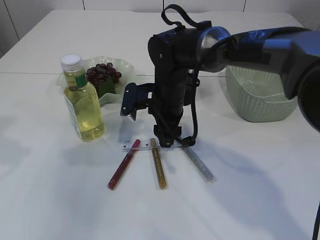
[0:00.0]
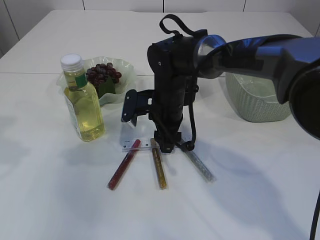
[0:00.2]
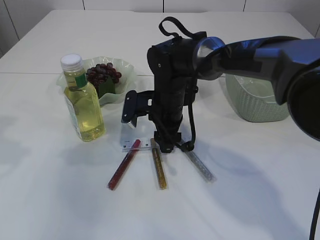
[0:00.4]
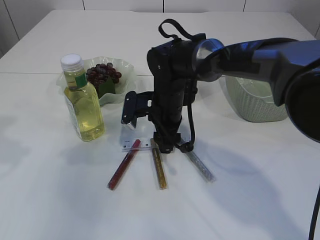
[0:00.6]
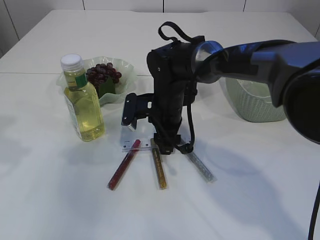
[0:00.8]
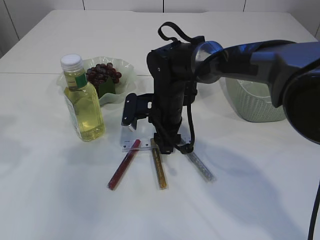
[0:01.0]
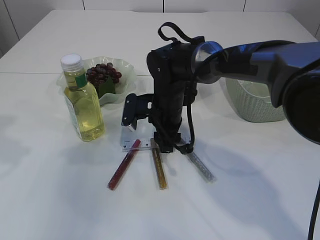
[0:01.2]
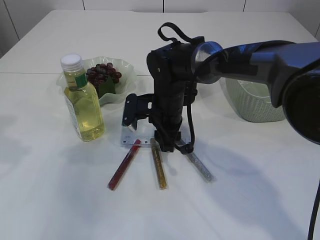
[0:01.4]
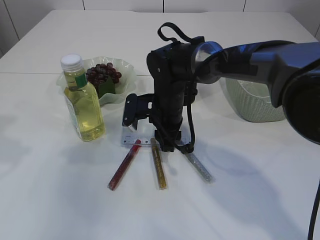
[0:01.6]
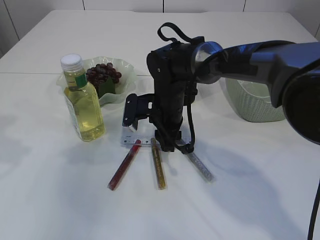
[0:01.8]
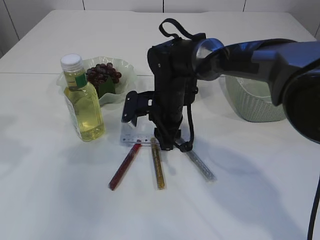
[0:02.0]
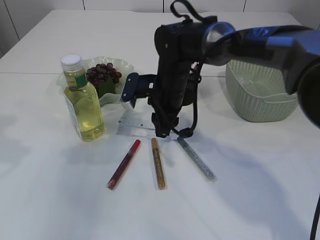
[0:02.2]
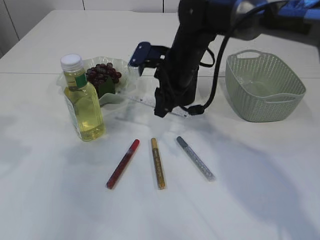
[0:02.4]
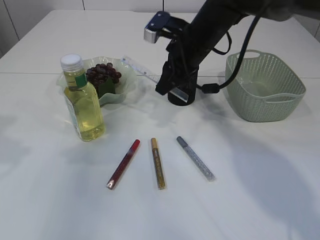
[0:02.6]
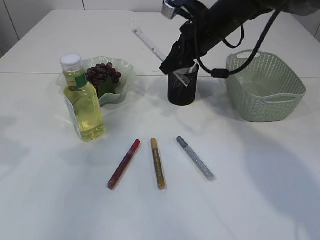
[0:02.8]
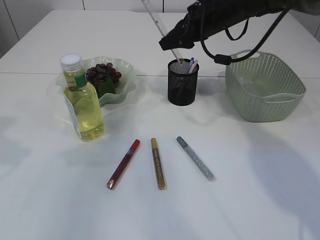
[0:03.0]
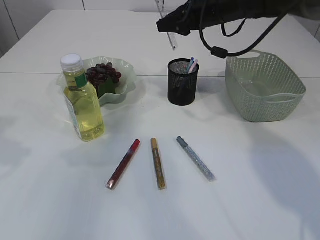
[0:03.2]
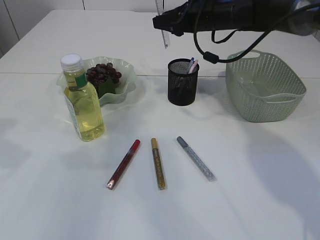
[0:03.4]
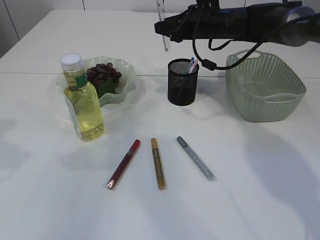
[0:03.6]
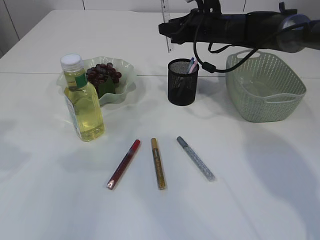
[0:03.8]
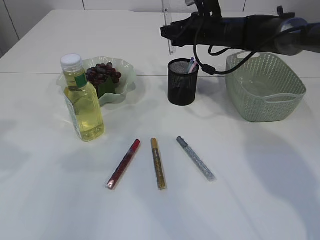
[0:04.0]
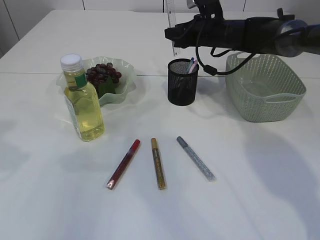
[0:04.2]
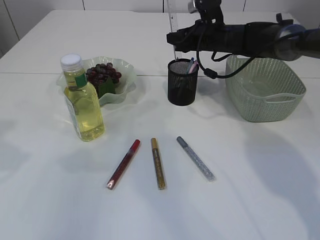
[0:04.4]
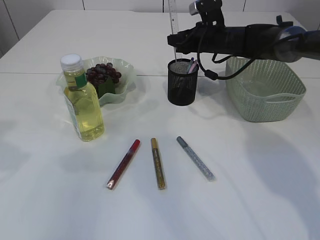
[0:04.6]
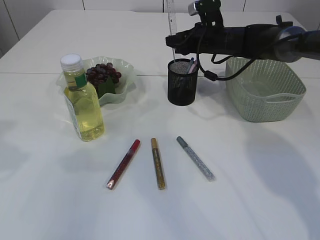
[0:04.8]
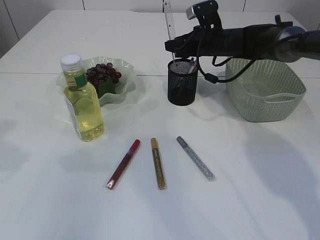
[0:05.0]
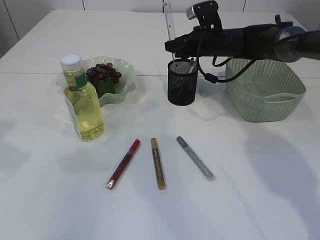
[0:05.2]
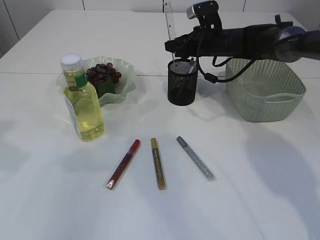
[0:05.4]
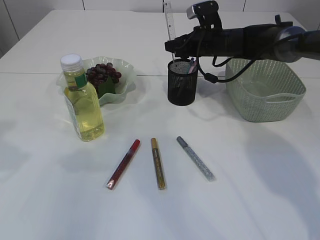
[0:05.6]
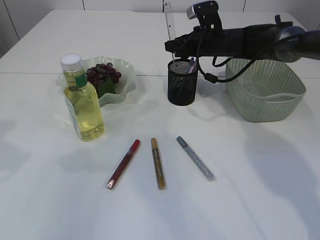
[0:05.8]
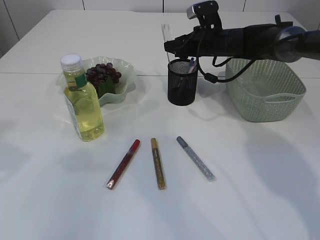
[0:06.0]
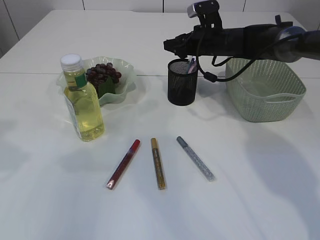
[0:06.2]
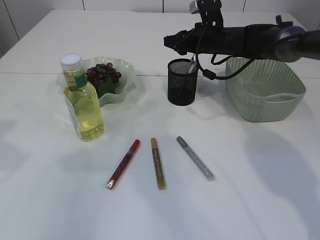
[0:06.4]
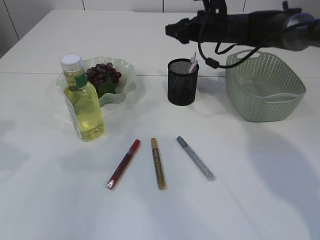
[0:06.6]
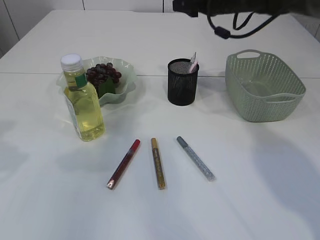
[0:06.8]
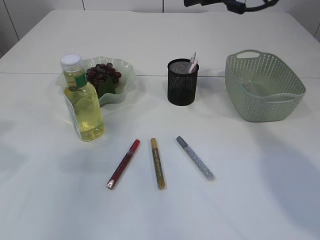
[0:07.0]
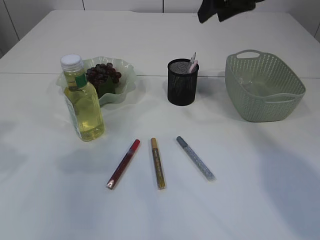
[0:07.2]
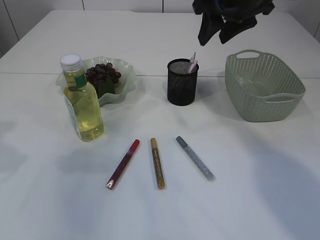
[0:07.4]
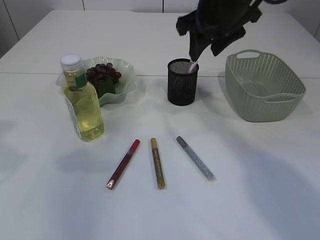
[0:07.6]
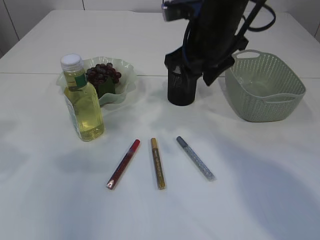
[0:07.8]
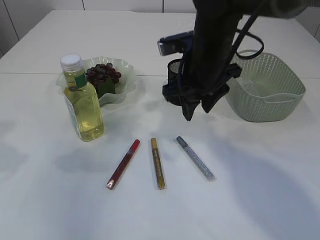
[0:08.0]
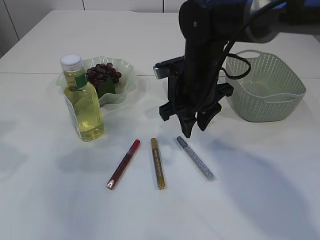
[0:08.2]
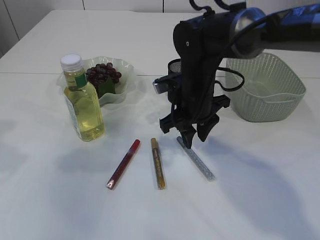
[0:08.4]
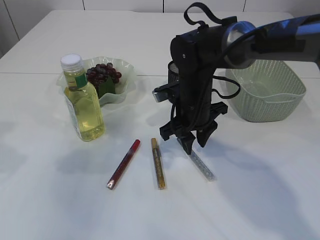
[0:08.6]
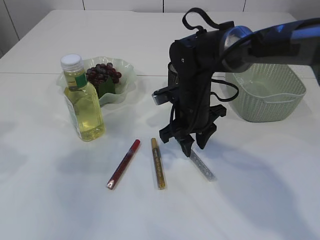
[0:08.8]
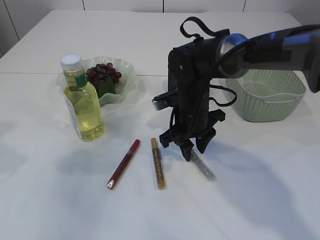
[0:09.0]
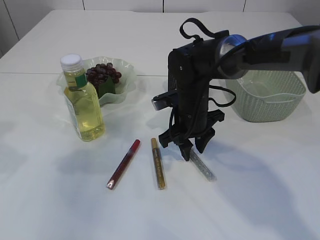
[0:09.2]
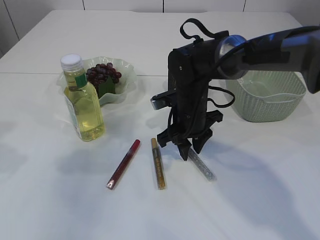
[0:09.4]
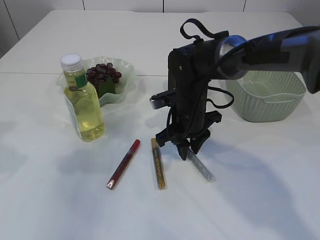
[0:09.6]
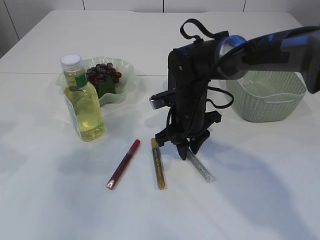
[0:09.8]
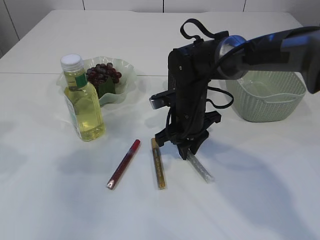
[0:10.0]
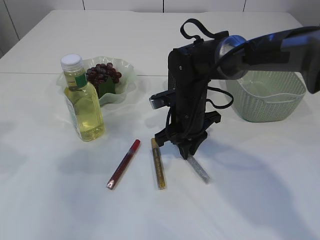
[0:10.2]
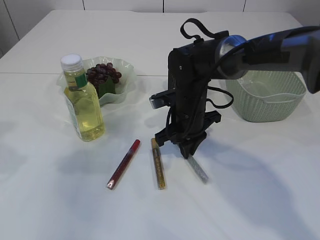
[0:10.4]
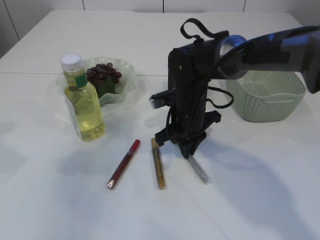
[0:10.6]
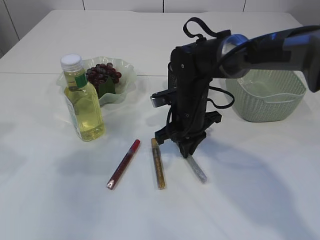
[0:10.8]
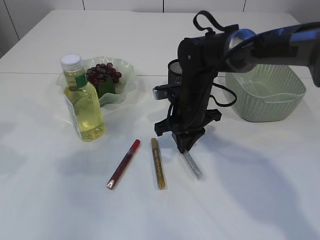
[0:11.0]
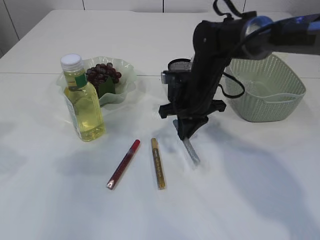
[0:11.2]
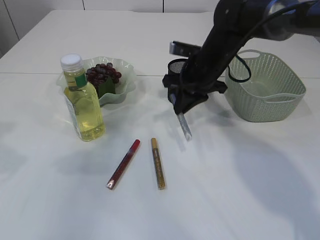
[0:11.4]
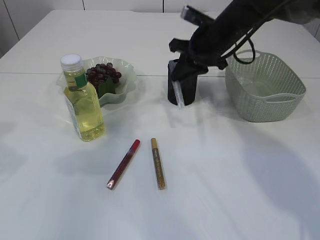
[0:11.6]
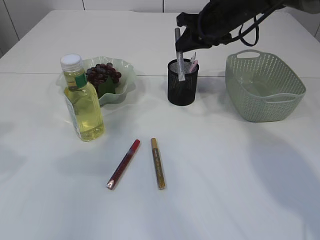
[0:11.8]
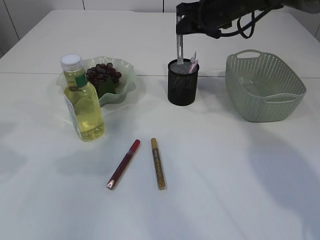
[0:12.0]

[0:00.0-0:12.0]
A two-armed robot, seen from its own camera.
Step, 0:00.0 to 0:02.4: pick up the ruler.
Step, 0:02.6 to 0:06.6: Place the ruler into the pen holder.
Step, 0:06.8 to 0:11.6: pick up the silver glue.
0:00.0 to 0:01.6: The grippers move only a little.
0:01.6 to 0:03.0: The right gripper goes some 20 cm upward, to the right and forward.
0:03.0 to 0:04.4: The right gripper is displaced downward and forward by about 10 cm.
0:04.4 to 0:06.0: The grippers make only small movements.
0:06.0 to 0:07.6: The right gripper goes approximately 20 cm upward and backward.
0:07.6 to 0:09.0: The right gripper travels downward by approximately 20 cm.
0:09.0 to 0:10.4: The right gripper closes up.
0:10.4 to 0:12.0: The right gripper is displaced upward, forward and to the right by roughly 20 cm.

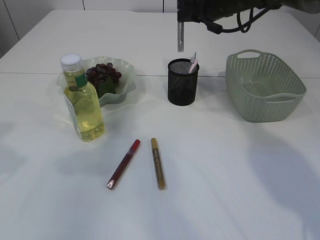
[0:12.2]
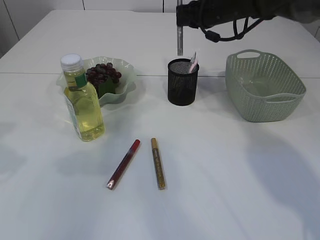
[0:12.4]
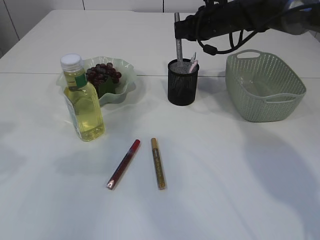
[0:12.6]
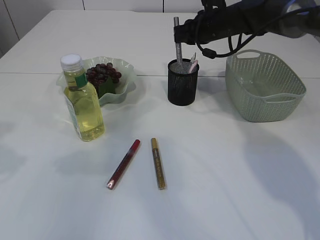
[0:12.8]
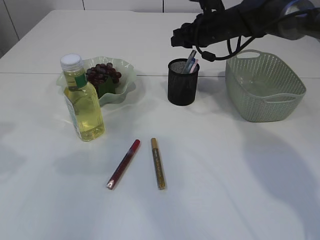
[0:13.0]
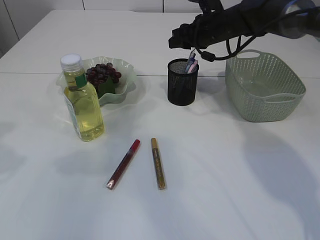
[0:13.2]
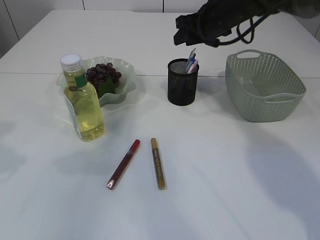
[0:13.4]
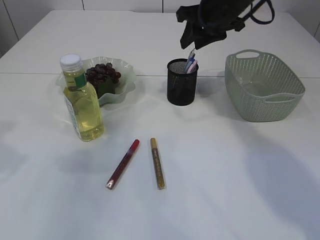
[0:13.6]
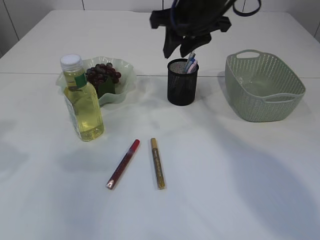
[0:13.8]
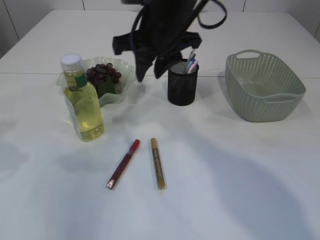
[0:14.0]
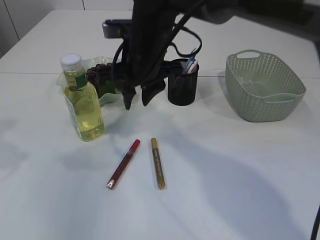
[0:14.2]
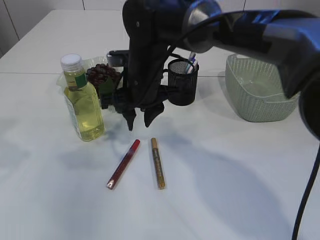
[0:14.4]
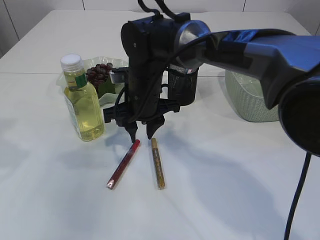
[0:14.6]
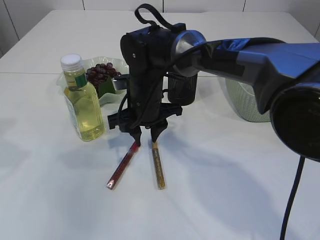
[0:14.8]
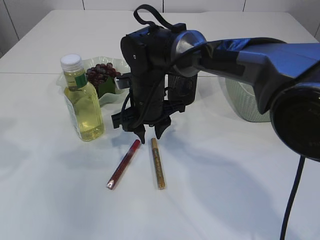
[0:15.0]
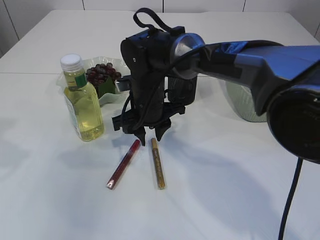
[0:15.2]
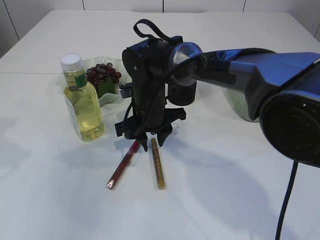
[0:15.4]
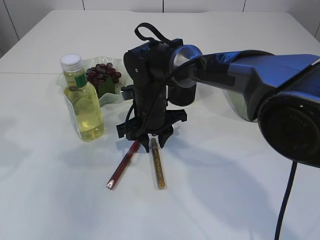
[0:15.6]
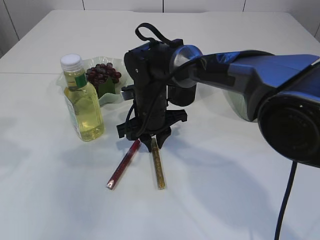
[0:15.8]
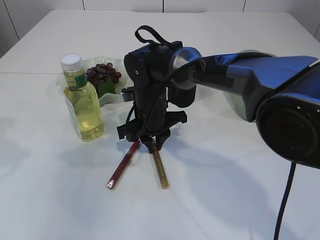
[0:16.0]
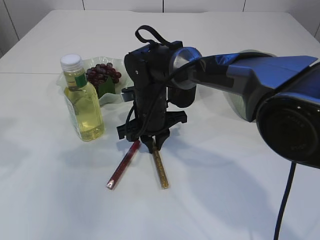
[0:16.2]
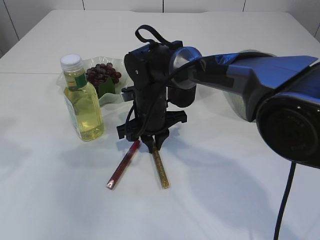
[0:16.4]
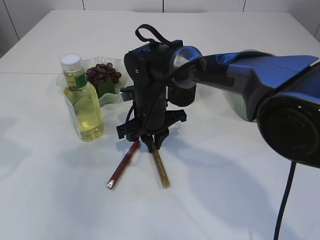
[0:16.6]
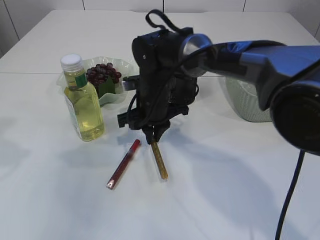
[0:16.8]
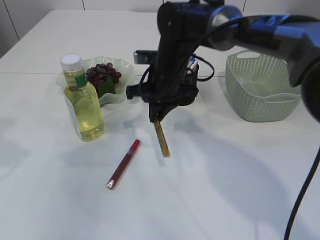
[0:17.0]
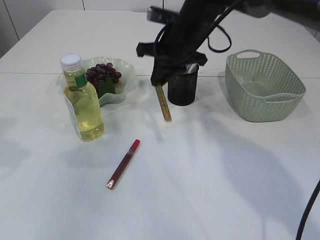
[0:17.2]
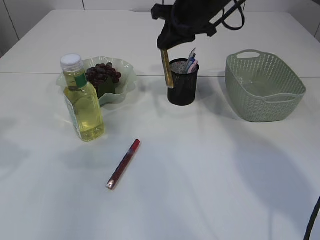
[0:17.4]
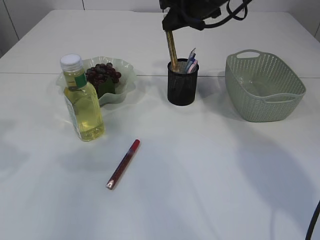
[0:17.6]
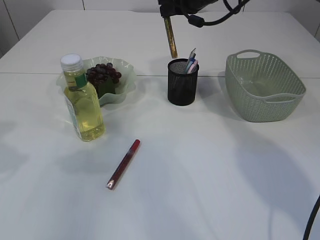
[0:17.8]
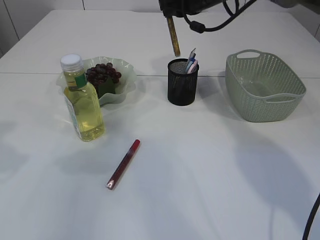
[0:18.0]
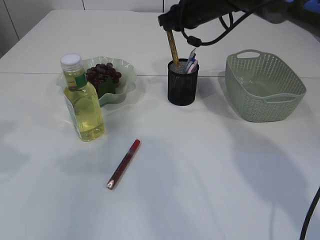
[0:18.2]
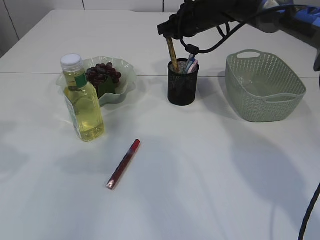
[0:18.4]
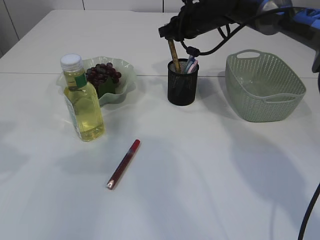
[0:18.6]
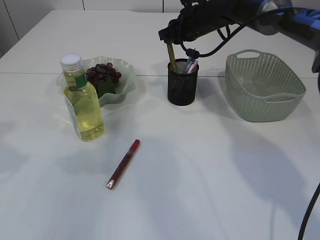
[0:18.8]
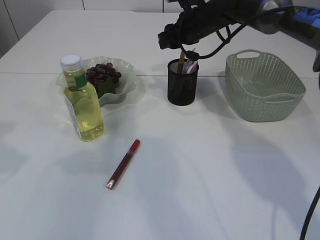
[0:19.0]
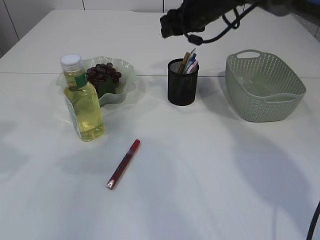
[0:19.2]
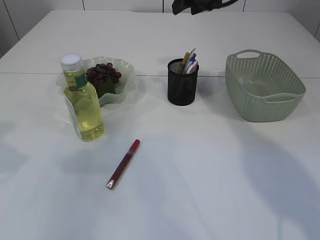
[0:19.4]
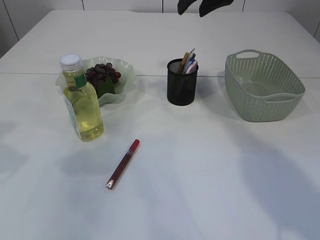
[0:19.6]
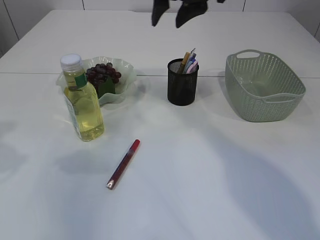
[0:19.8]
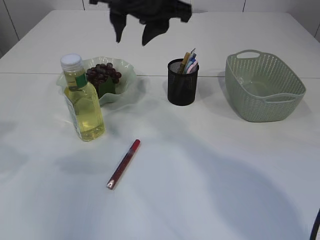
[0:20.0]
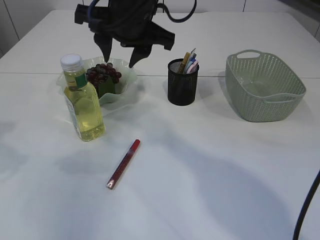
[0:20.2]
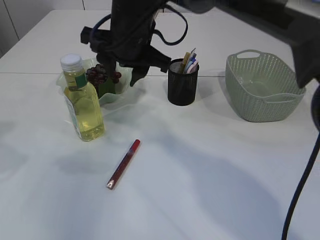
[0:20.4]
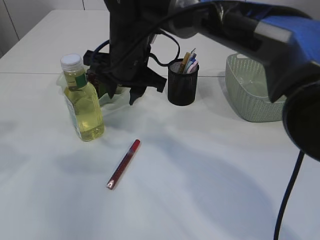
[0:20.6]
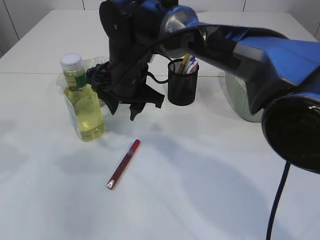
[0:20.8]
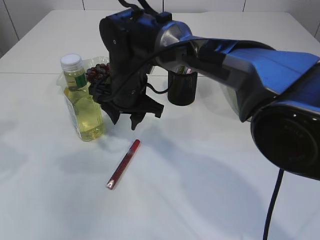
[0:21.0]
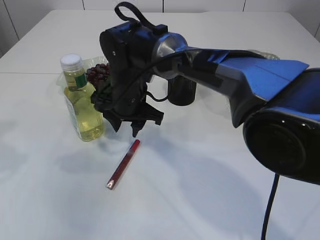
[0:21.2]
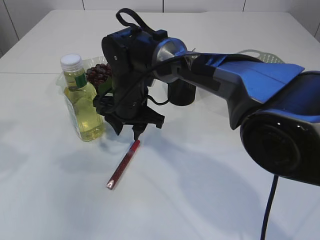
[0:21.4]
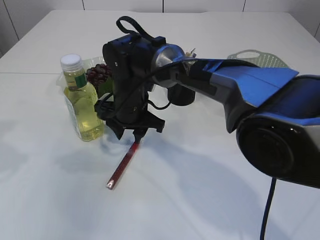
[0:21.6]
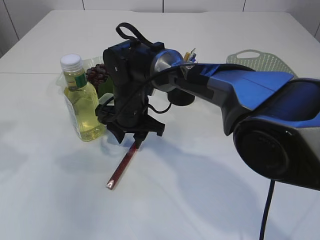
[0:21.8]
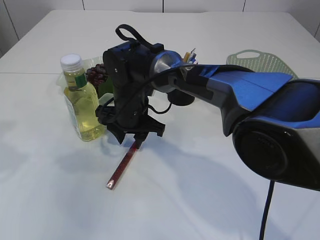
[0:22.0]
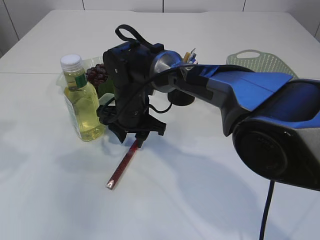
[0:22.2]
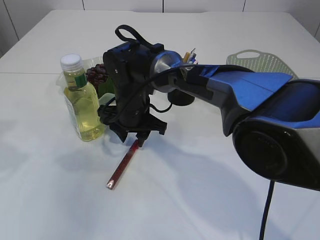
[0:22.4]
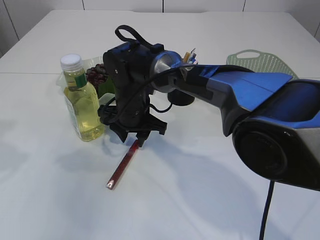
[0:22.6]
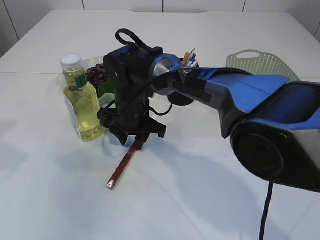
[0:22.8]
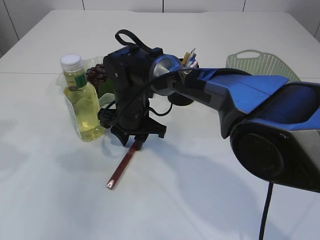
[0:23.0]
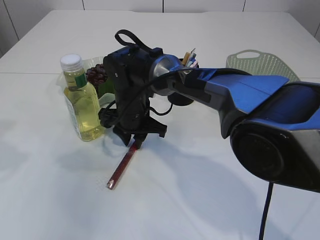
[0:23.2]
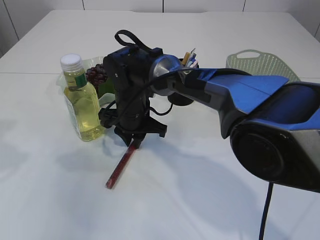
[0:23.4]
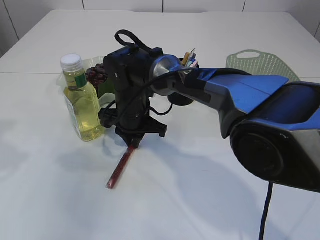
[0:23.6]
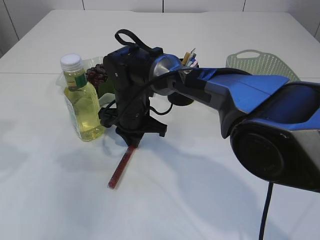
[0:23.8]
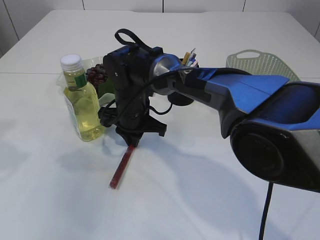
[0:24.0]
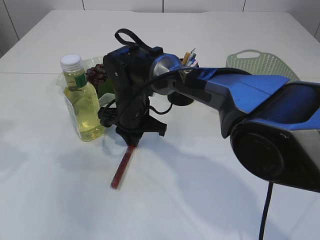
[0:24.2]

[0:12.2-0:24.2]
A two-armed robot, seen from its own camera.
Step, 0:12.2 to 0:13.4: place the silver glue into the pen holder.
Step, 0:13.6 to 0:17.2: pick up the yellow glue.
Step, 0:17.4 to 0:19.0: place the yellow glue into the pen holder.
0:12.2 to 0:13.8: The right gripper heads backward and to the left, covering some 10 cm, and opens its fingers.
0:13.8 to 0:15.2: The right gripper goes approximately 20 cm downward and to the left.
0:15.2 to 0:16.6: The right gripper closes its fingers.
0:16.6 to 0:18.2: The right gripper shifts approximately 20 cm upward, forward and to the right.
0:18.2 to 0:19.8: The right gripper goes some 15 cm backward and upward, and opens.
0:19.8 to 0:21.2: The right gripper moves downward and to the left, some 25 cm.
0:21.2 to 0:22.6: The grippers stay close to where they were, moving slightly.
0:22.6 to 0:24.2: The right gripper closes its fingers.
